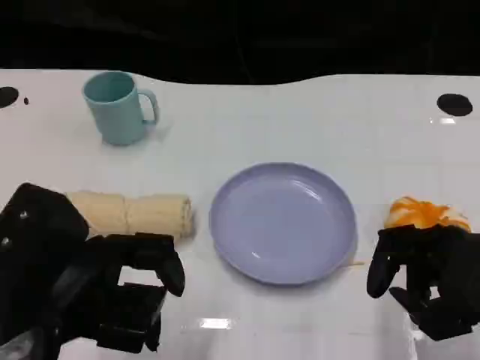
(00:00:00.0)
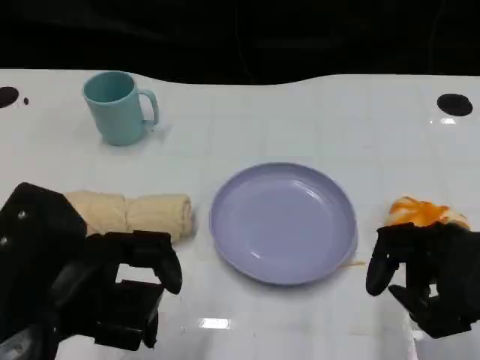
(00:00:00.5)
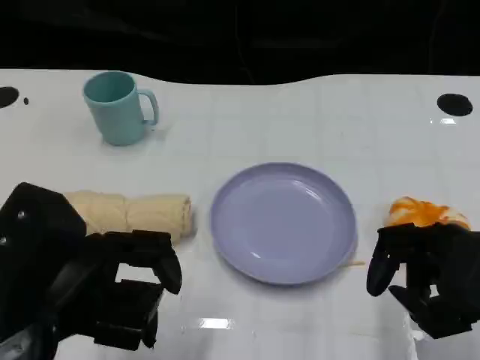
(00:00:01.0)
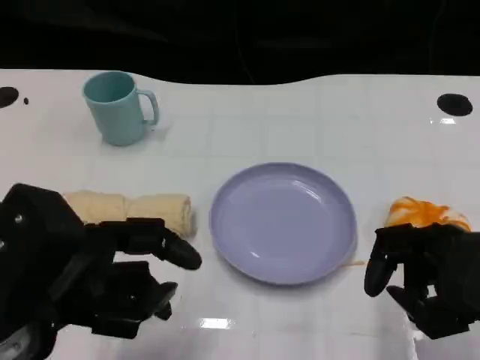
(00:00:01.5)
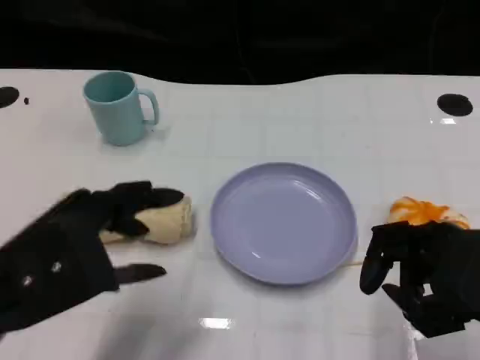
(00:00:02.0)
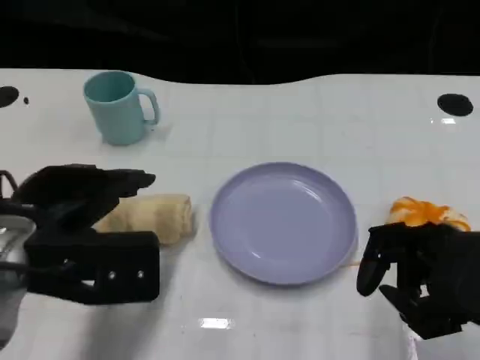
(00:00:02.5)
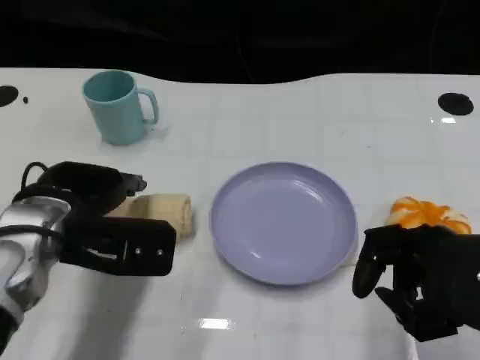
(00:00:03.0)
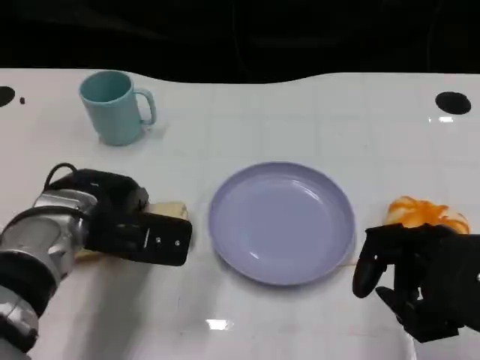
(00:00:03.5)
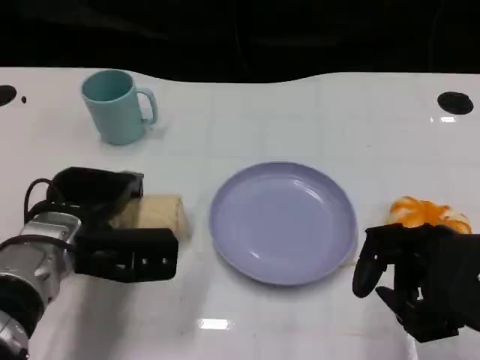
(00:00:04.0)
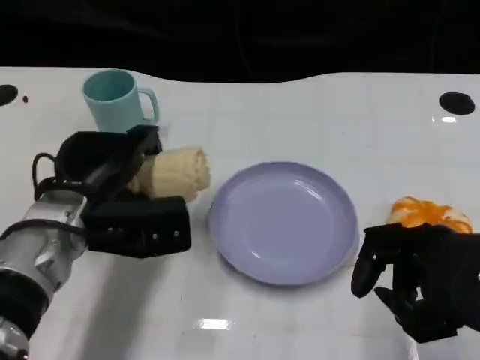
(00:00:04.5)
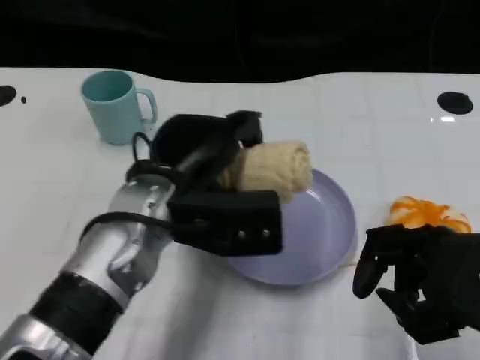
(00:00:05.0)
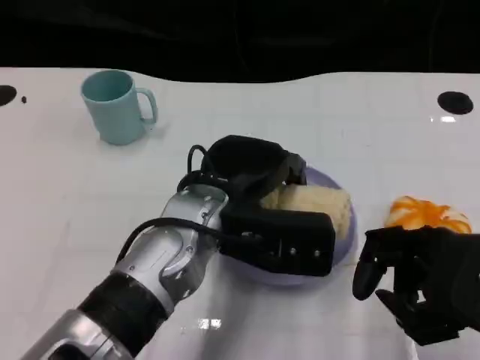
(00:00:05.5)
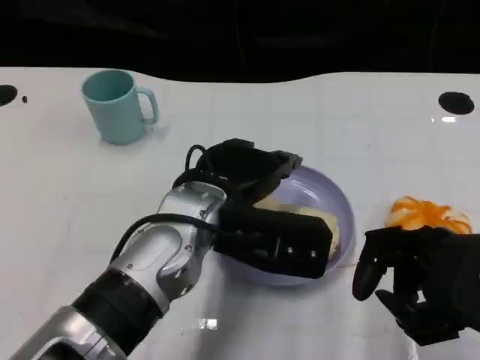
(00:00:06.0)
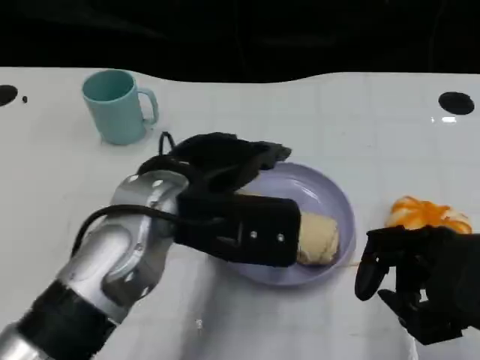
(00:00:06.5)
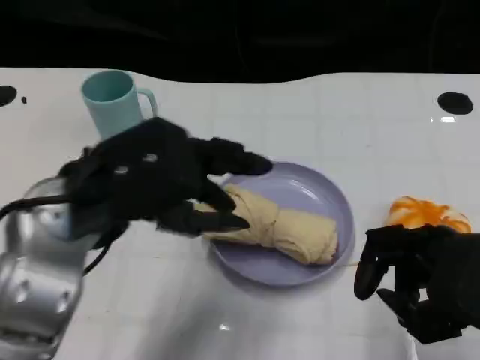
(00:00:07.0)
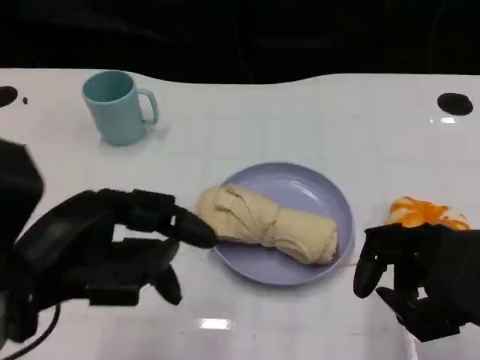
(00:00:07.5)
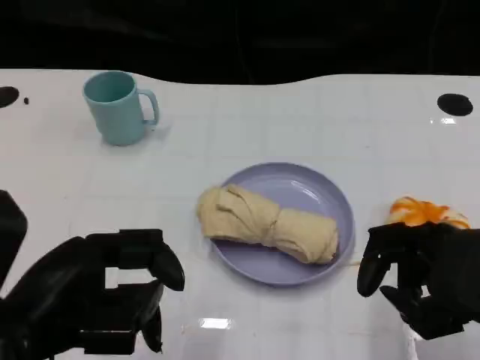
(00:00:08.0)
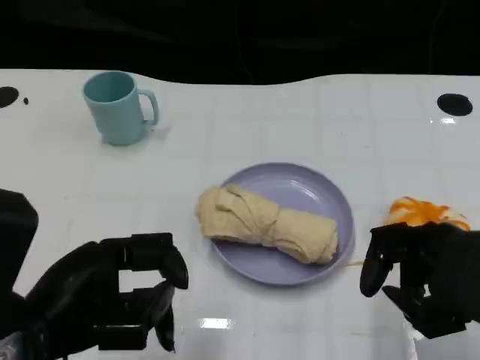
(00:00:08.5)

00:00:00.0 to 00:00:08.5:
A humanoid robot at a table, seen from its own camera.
Task of the whole recording: Grasp the towel on the left side of the plate with the left hand and place it into the plate.
00:00:02.0 to 00:00:04.0: The left hand is displaced forward and downward by roughly 15 cm.
00:00:04.0 to 00:00:06.5: The left hand is displaced upward and to the right by about 15 cm.
00:00:06.5 to 00:00:08.5: The left hand shifts some 15 cm to the left and backward.

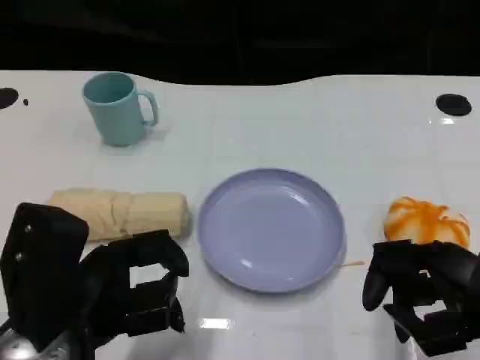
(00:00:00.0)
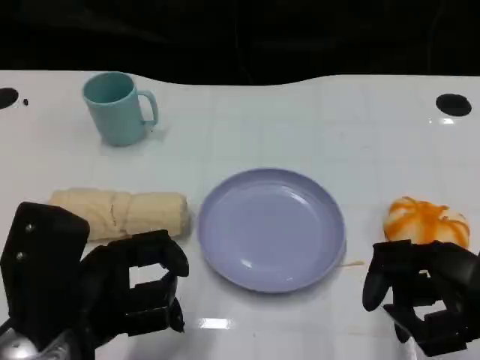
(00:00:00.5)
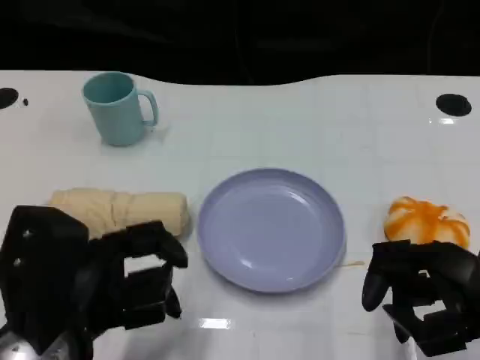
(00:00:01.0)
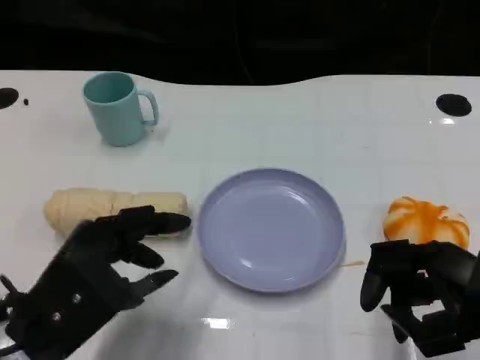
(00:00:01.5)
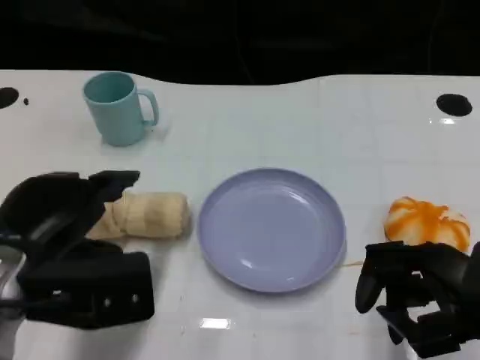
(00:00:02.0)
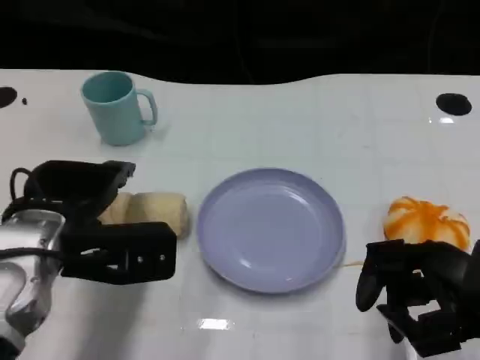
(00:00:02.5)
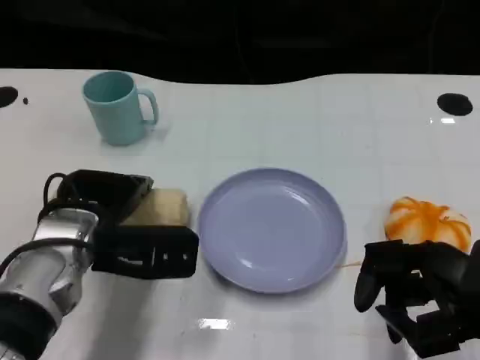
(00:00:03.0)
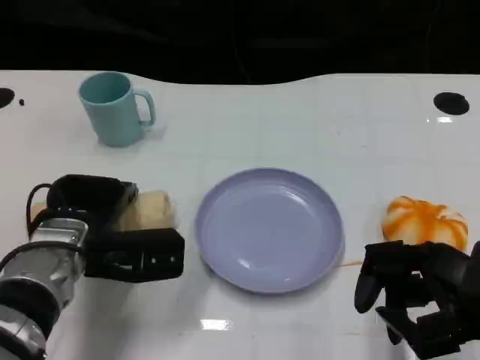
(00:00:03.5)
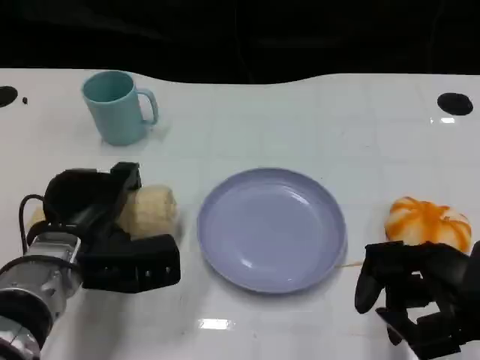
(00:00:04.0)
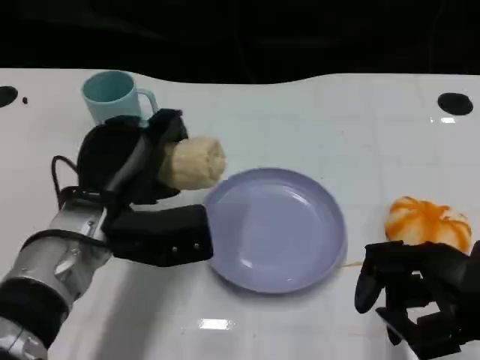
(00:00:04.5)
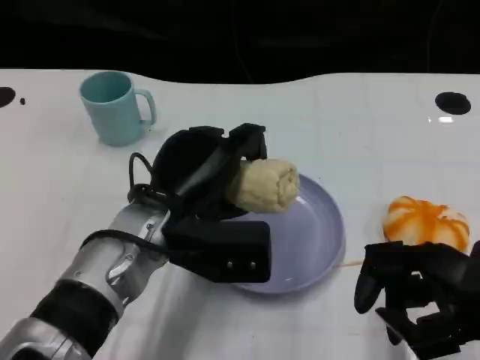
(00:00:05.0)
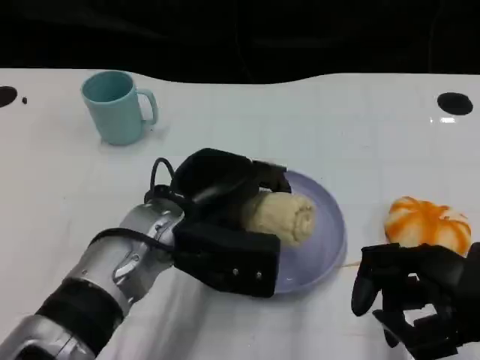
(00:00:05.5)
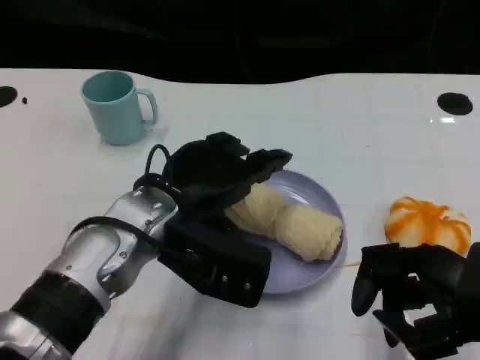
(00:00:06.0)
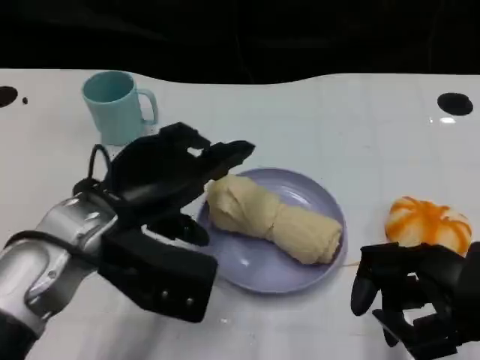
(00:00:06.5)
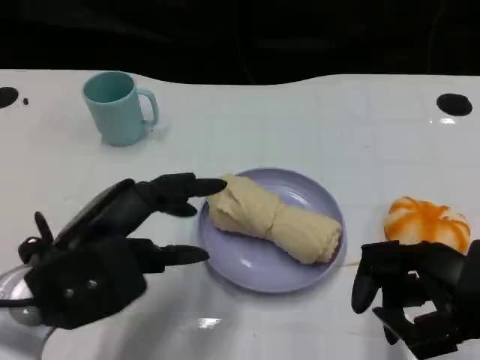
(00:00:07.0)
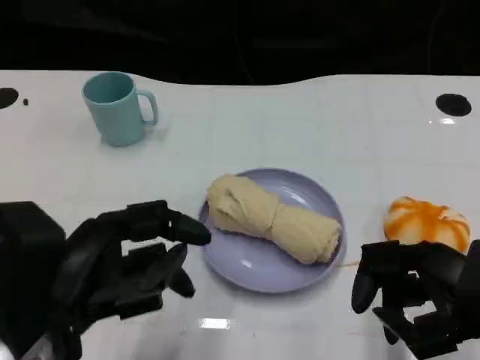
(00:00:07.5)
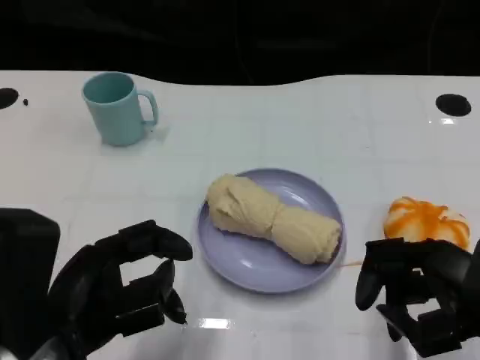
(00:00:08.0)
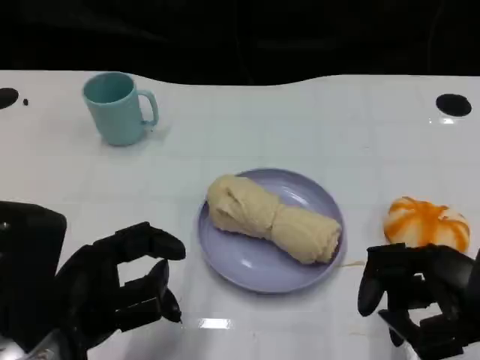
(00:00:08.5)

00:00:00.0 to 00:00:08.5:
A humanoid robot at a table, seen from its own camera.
Task of the whole recording: Grasp the towel on the left side of the plate with the left hand and place it into the plate.
00:00:00.0 to 00:00:02.0: The left hand travels forward by approximately 5 cm.
00:00:02.0 to 00:00:04.0: The left hand travels downward and forward by about 10 cm.
00:00:04.0 to 00:00:06.5: The left hand travels upward by roughly 10 cm, and moves some 10 cm to the right and comes back.
00:00:06.5 to 00:00:08.5: The left hand heads backward, covering approximately 10 cm.

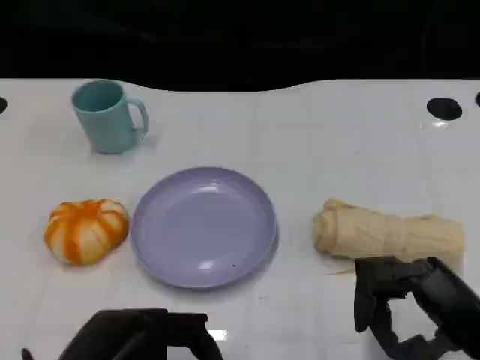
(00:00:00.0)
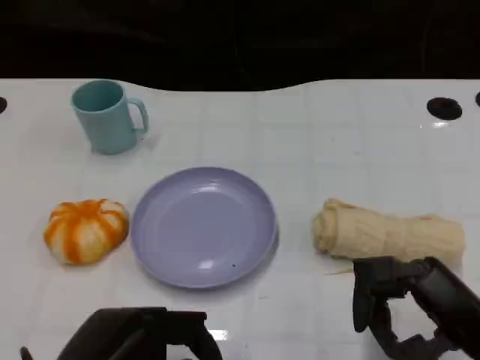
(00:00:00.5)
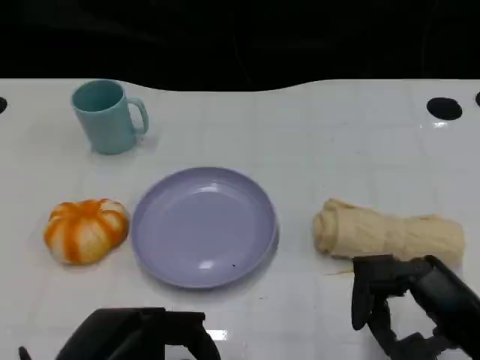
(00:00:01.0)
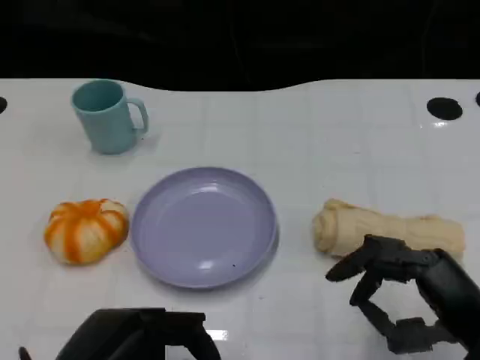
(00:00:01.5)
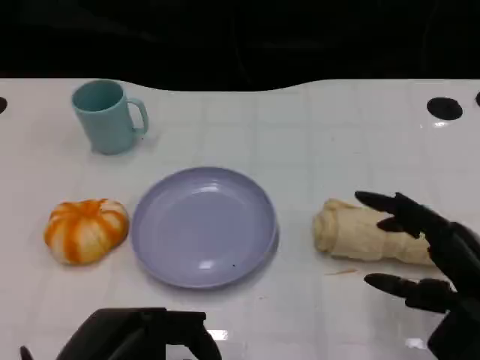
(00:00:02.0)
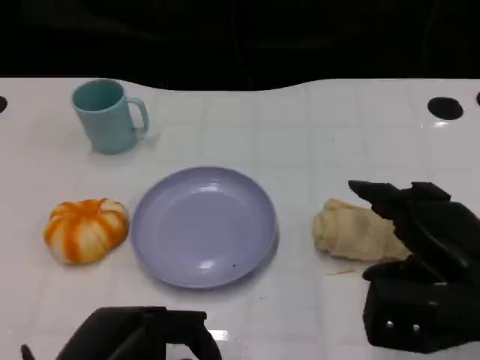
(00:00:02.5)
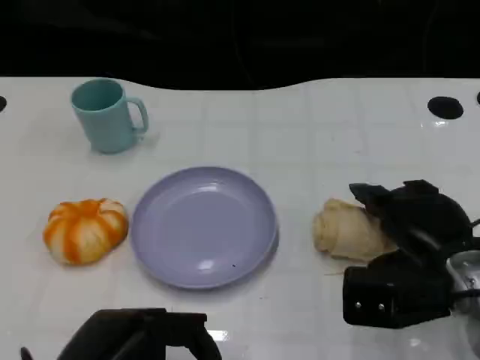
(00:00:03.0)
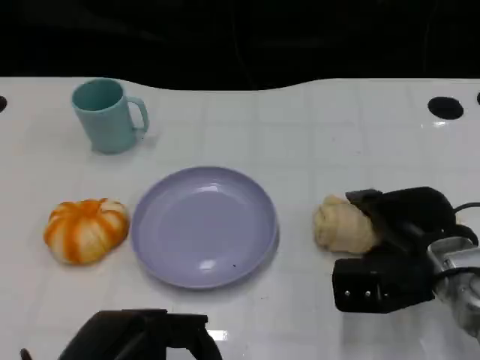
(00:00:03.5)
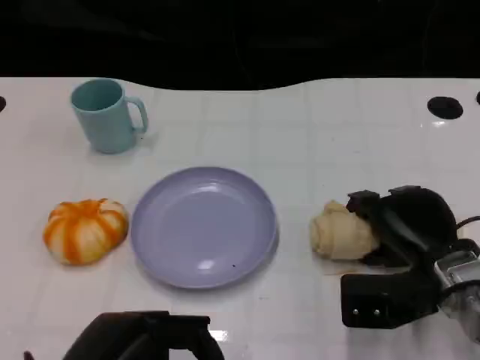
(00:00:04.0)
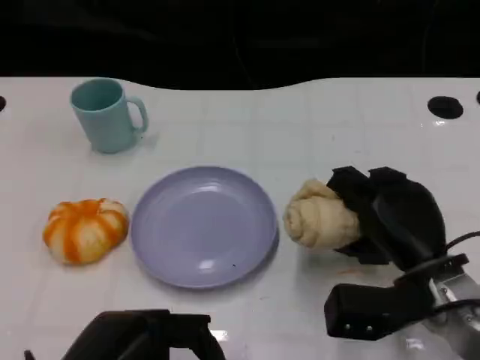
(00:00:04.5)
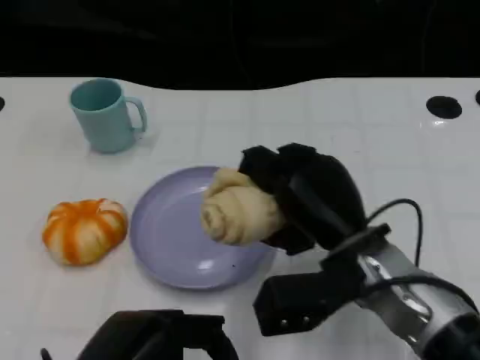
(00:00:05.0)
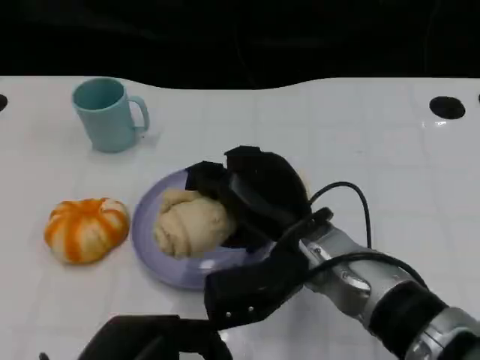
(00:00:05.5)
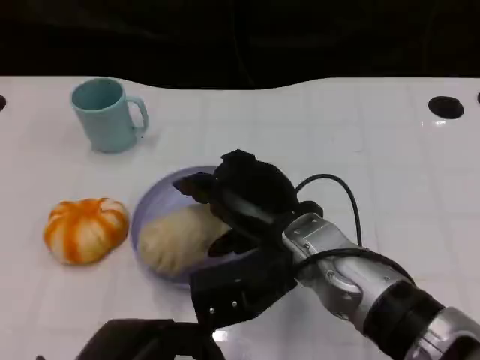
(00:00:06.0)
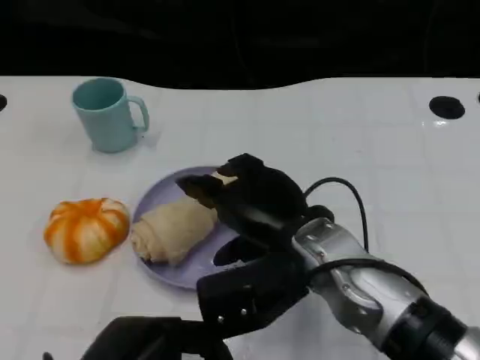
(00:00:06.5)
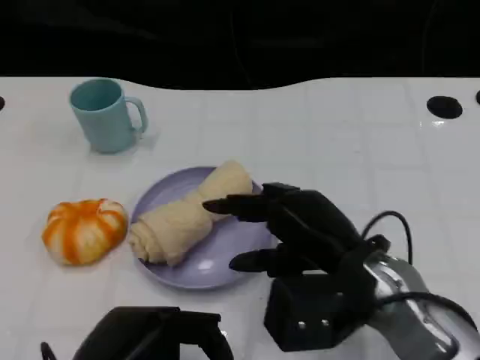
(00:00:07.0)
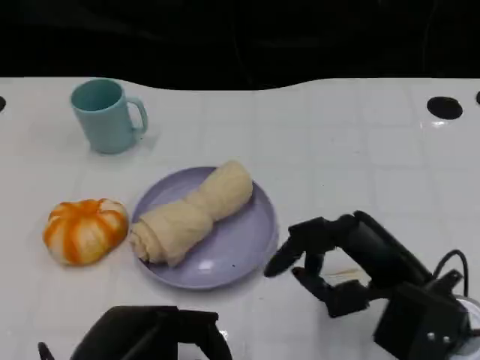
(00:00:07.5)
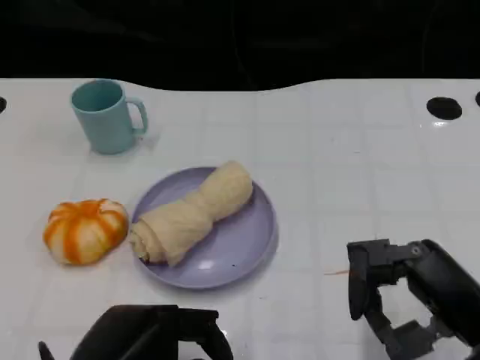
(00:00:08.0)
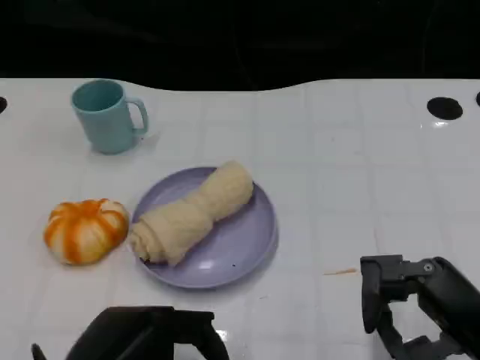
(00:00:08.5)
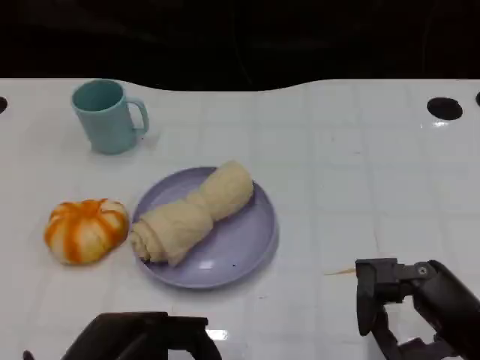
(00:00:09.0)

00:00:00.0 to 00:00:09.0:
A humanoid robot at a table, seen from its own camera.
Task of the whole recording: Grasp the towel on the left side of the plate with the left hand and place it into the plate.
00:00:02.0 to 00:00:04.5: The right hand is displaced forward, to the left and downward by approximately 10 cm.
00:00:04.5 to 00:00:07.0: The right hand heads upward and to the left, covering some 10 cm.
00:00:07.0 to 00:00:09.0: The right hand shifts about 15 cm to the right and backward.
